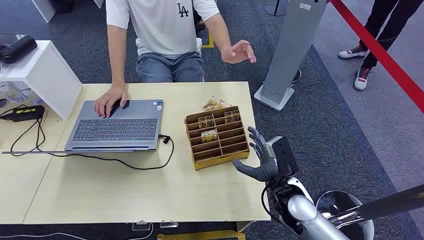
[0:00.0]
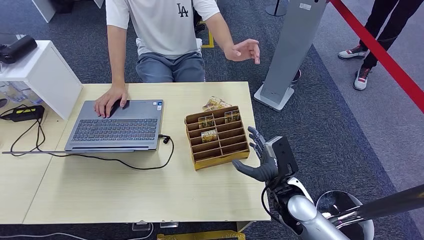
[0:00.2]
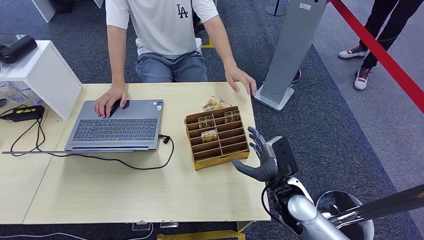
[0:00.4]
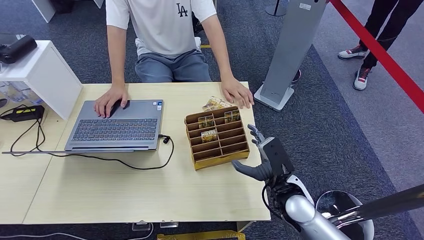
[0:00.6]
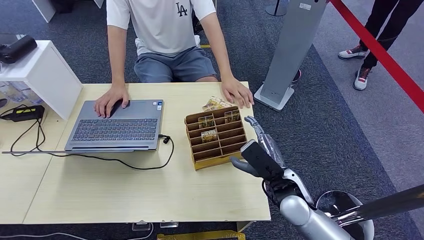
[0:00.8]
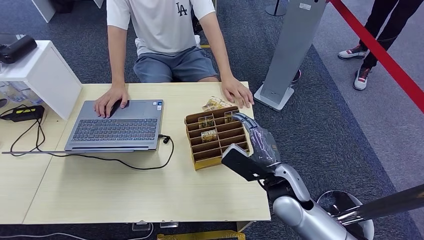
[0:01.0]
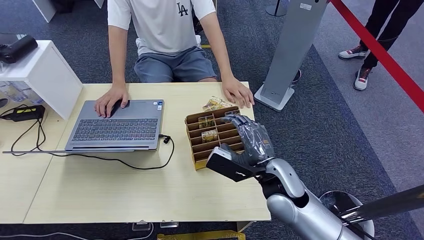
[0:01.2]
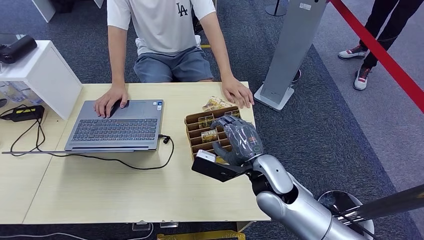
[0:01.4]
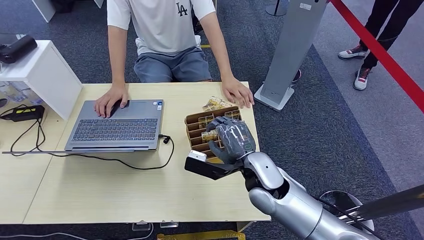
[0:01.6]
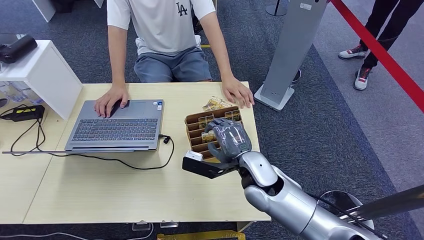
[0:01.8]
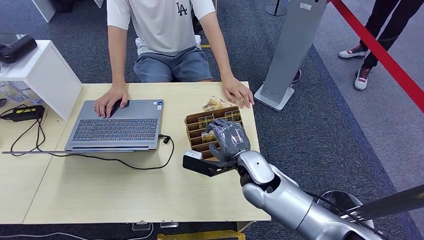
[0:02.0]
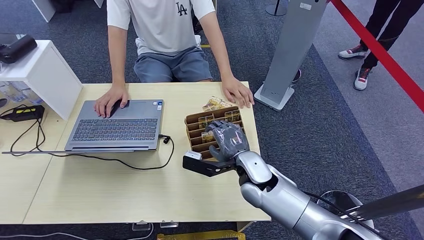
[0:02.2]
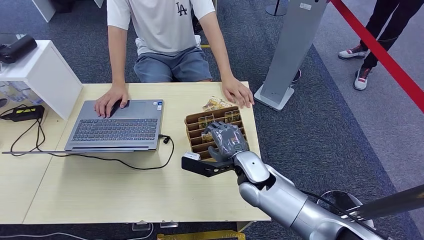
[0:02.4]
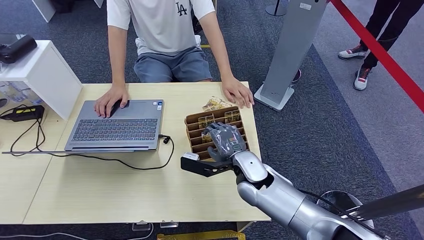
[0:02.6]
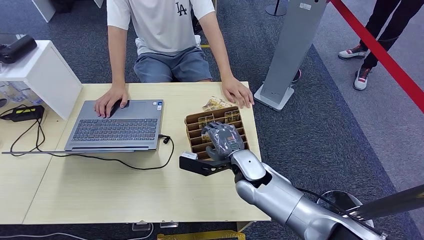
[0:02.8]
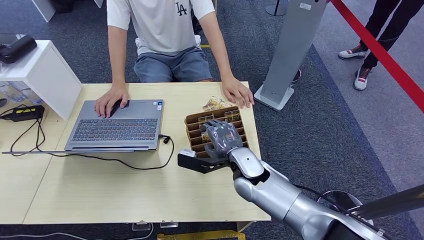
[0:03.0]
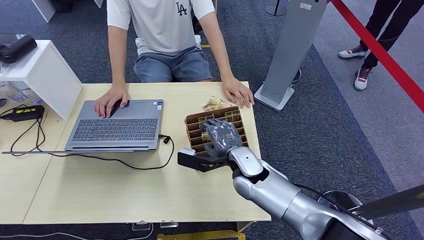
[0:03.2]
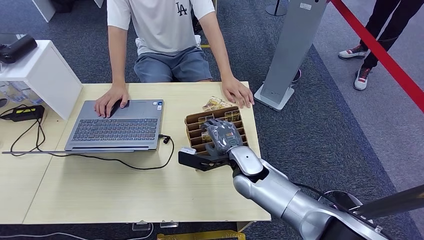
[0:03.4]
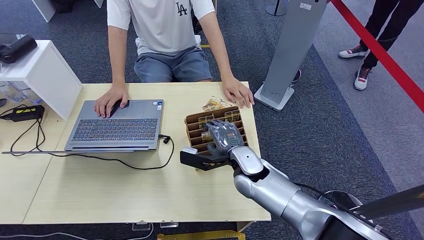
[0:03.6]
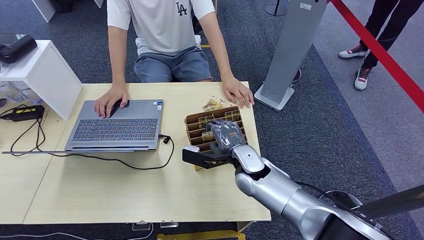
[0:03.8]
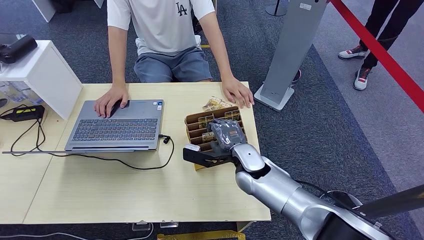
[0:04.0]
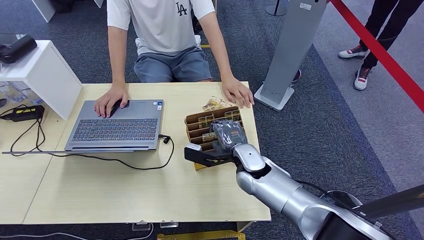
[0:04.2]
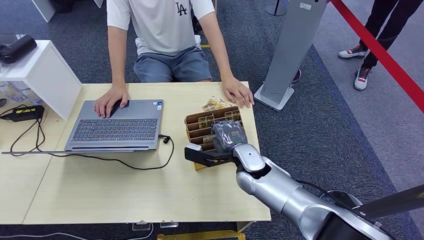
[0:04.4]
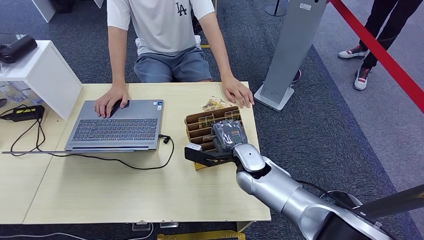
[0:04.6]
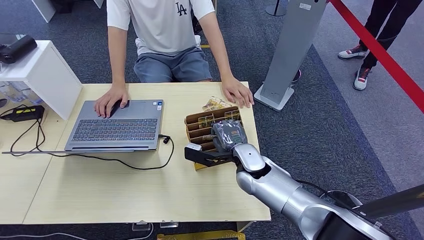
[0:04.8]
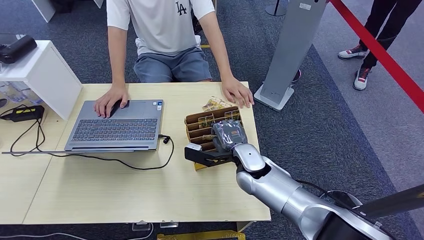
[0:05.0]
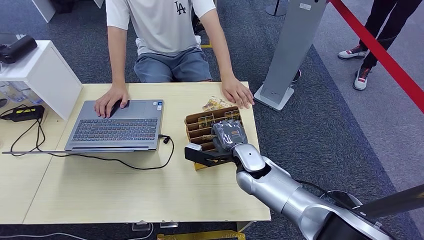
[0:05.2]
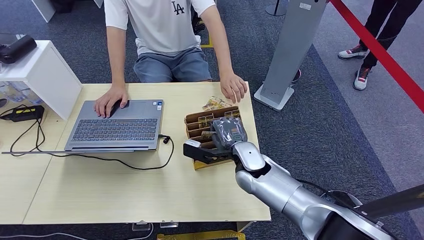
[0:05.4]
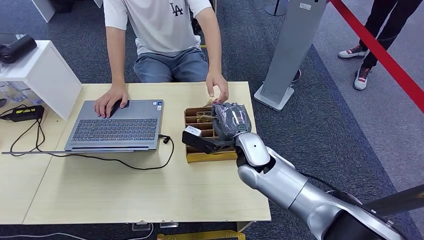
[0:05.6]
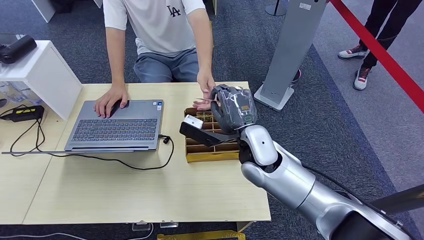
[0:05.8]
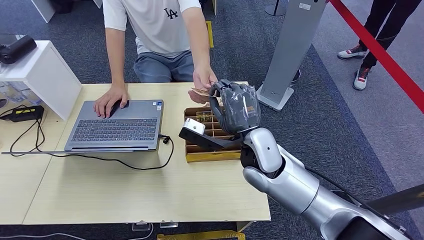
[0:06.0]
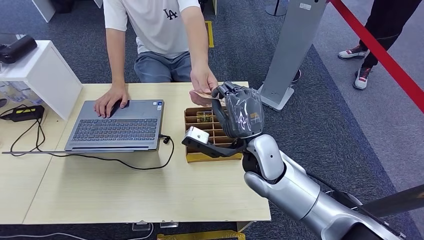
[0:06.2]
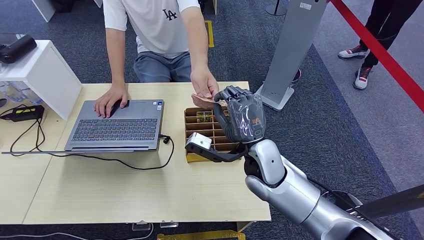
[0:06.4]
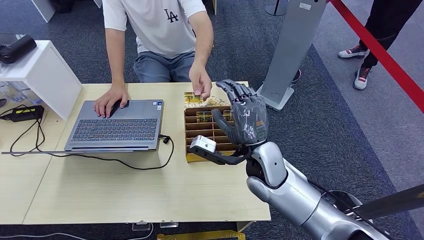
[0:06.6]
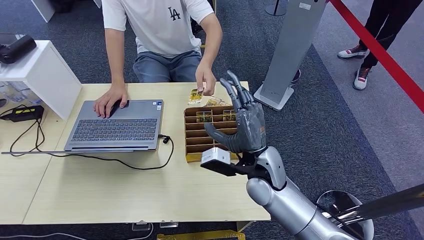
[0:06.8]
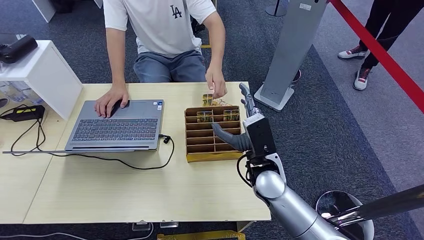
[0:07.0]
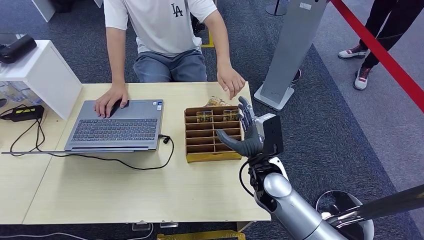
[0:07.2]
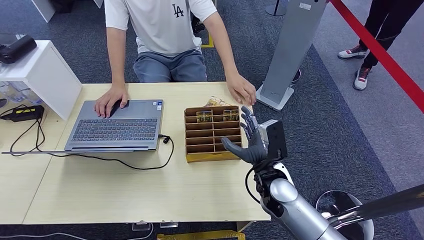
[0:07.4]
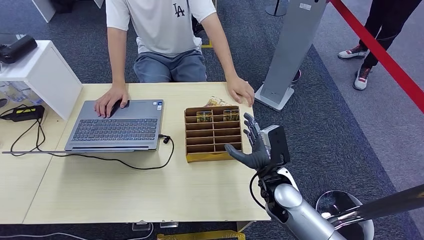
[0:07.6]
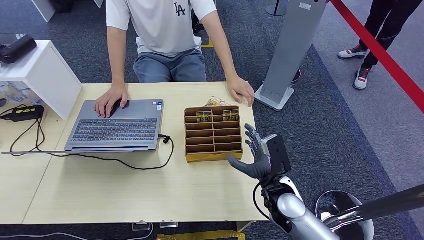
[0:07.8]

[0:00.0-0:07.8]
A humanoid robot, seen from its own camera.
Step, 0:00.0 to 0:05.2: Pick up the room card from the card holder.
Step, 0:05.6 to 0:07.8: Hand the room card to the target.
0:01.6 to 0:04.6: The hands move only a little.
0:04.6 to 0:06.2: The right hand is displaced upward by some 10 cm.
0:06.2 to 0:07.8: The right hand shifts approximately 15 cm downward, backward and to the right.
